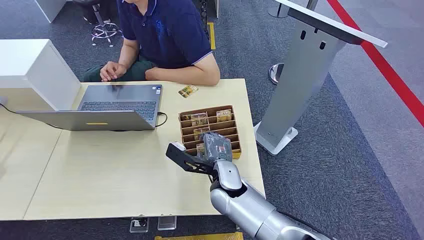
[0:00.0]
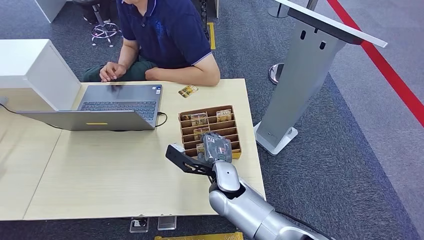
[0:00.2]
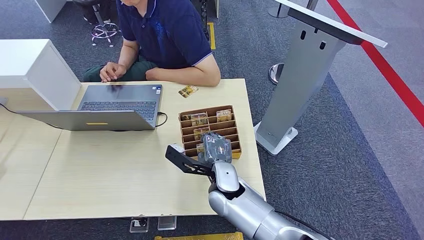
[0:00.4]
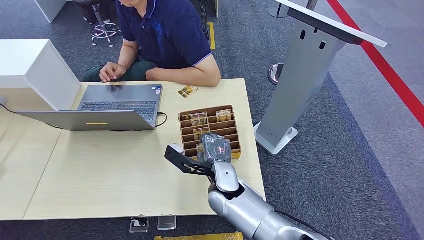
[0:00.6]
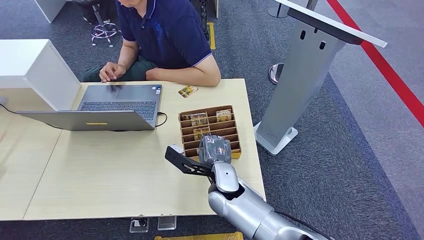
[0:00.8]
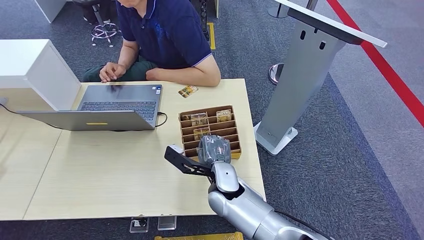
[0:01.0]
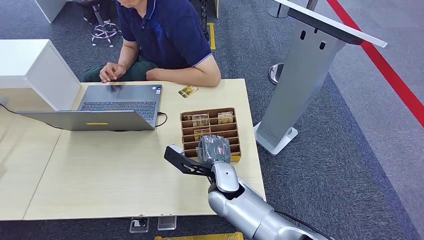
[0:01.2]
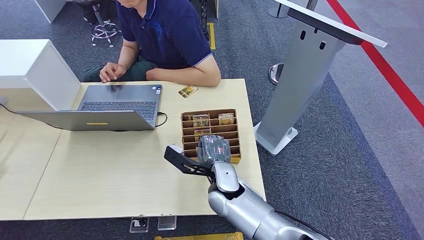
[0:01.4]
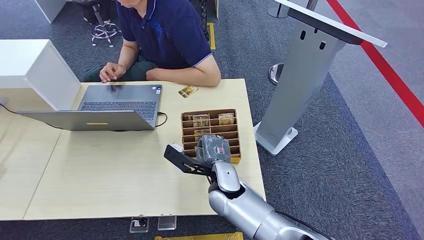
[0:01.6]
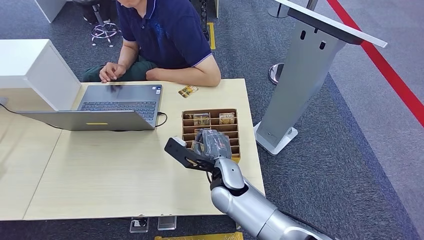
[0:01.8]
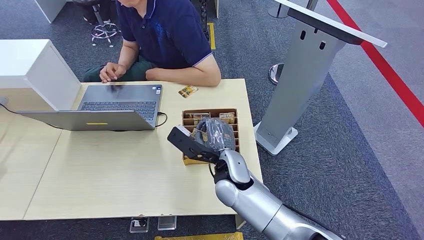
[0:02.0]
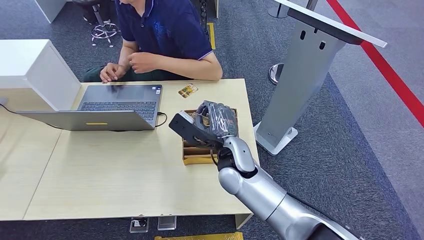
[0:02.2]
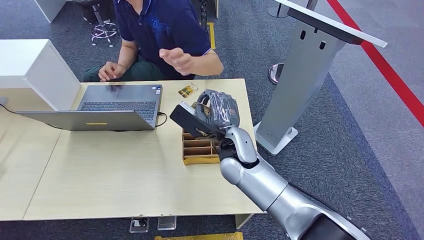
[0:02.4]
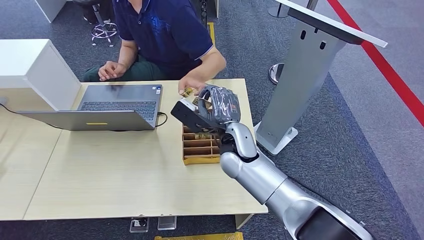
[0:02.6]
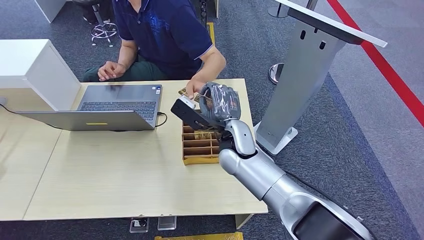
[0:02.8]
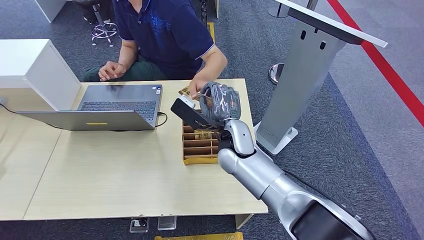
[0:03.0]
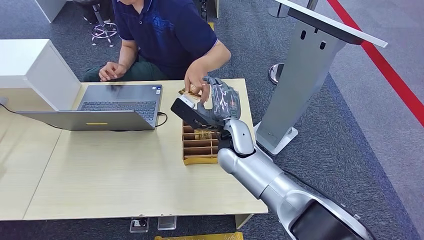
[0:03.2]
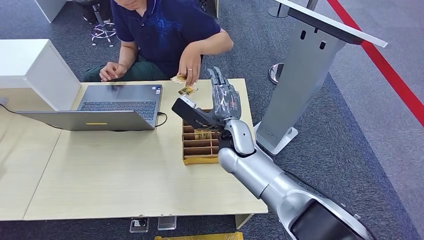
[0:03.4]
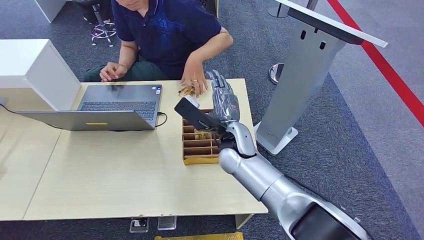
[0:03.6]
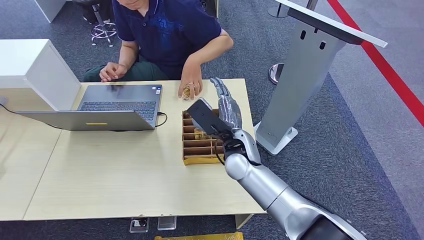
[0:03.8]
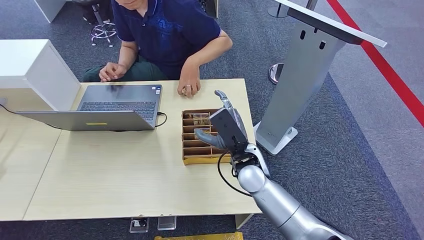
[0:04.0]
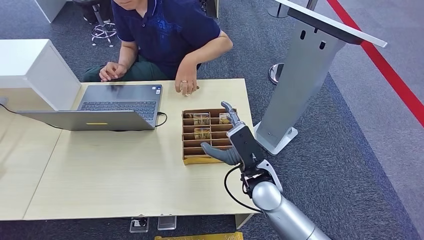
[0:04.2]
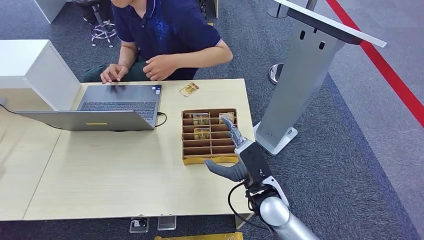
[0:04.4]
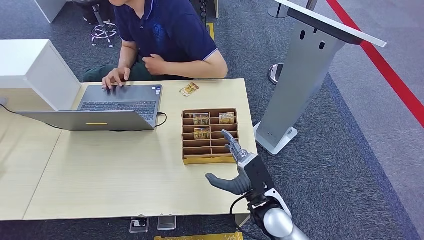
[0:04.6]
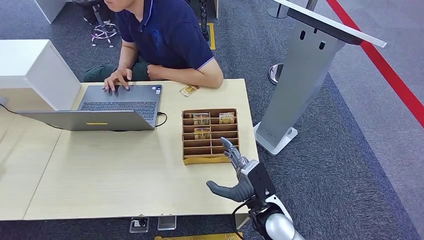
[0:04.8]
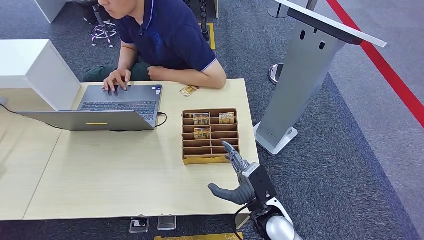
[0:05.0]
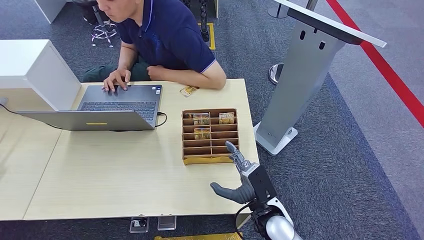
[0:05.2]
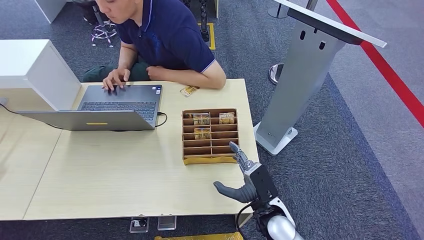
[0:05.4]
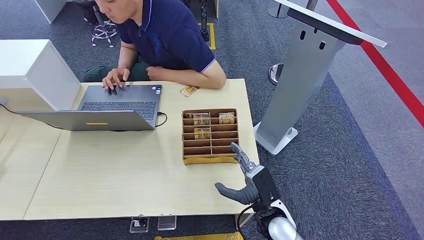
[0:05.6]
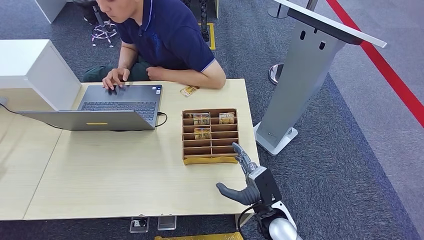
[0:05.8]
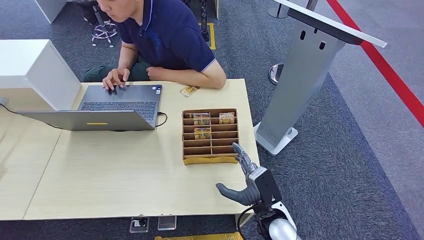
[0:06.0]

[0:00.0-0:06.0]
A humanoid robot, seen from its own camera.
Step, 0:00.0 to 0:02.0: Pick up the key card from the card box.
Step, 0:02.2 to 0:06.0: Hand the key card to the target.
0:01.6 to 0:03.0: The right hand heads upward and forward, covering about 10 cm.
0:03.0 to 0:04.4: The right hand travels backward, to the right and downward by roughly 15 cm.
0:04.4 to 0:06.0: The right hand travels downward by approximately 5 cm.
